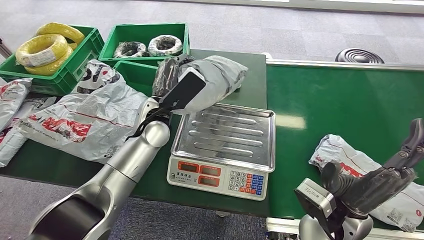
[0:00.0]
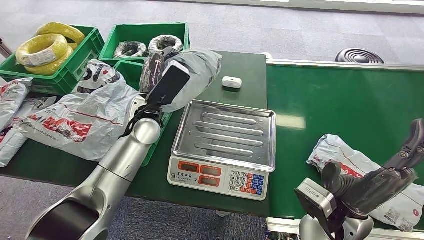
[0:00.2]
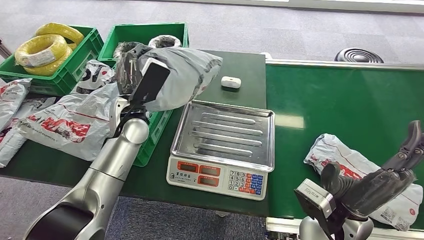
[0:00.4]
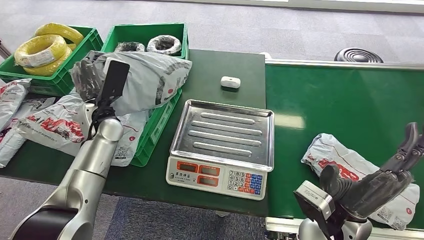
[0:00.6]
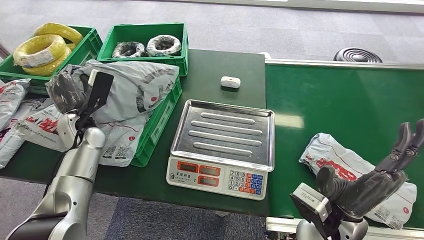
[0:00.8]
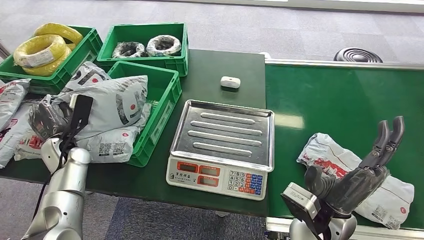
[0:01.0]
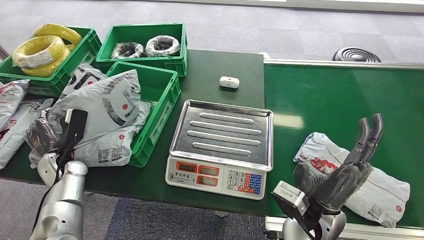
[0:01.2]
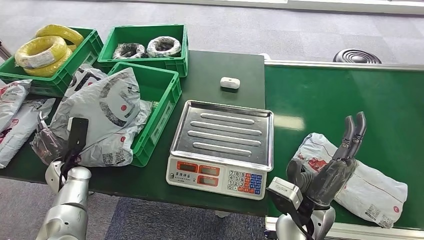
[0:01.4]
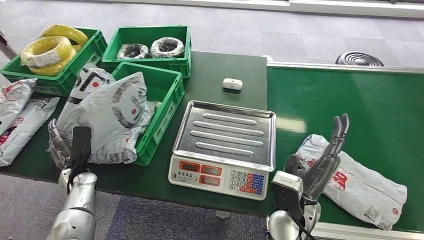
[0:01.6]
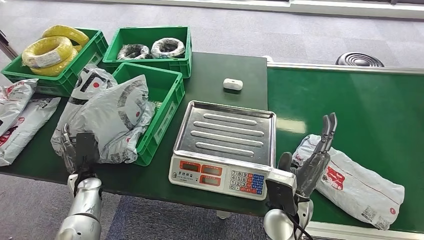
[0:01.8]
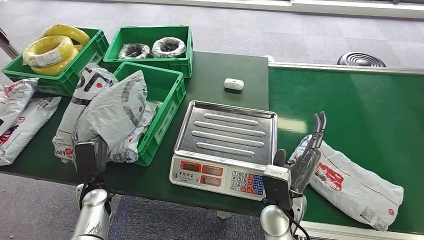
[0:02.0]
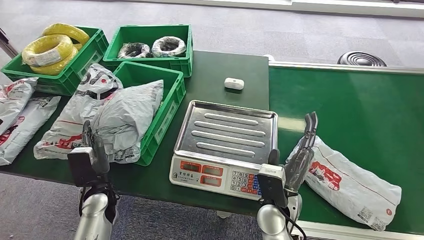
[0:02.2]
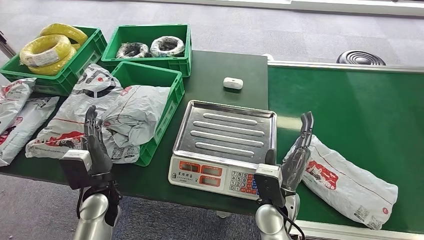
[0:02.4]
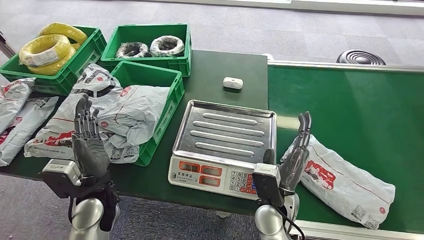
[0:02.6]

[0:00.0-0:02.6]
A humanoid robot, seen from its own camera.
Step, 0:01.0 to 0:02.6: Place the package into the parcel locker.
